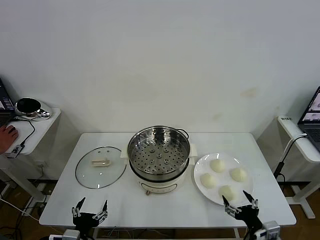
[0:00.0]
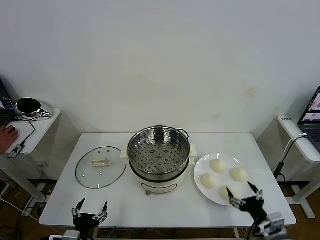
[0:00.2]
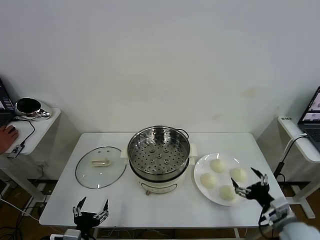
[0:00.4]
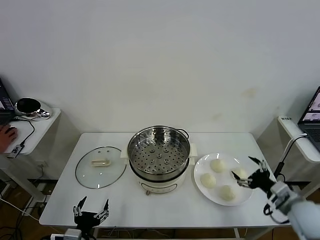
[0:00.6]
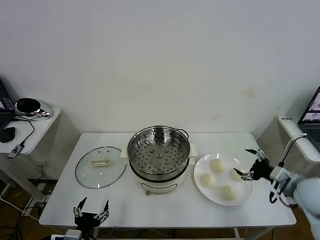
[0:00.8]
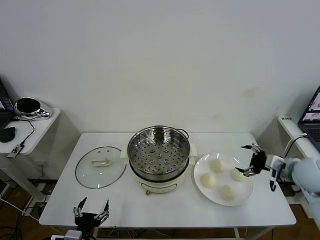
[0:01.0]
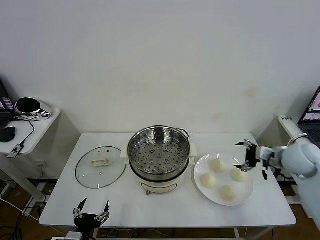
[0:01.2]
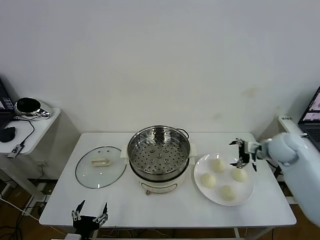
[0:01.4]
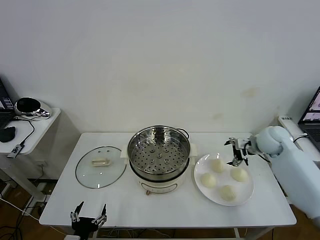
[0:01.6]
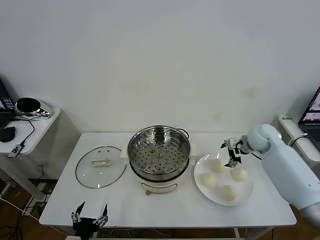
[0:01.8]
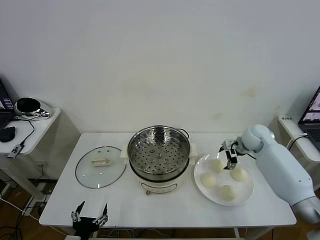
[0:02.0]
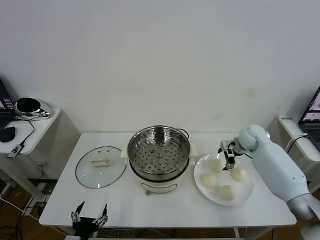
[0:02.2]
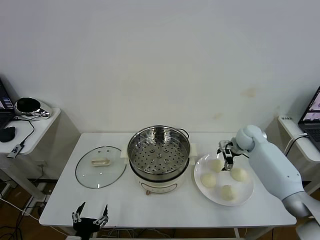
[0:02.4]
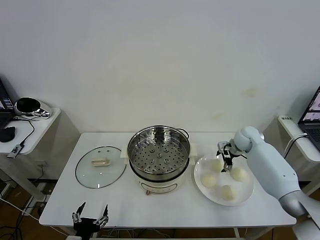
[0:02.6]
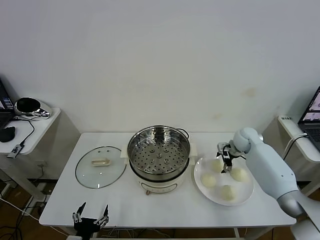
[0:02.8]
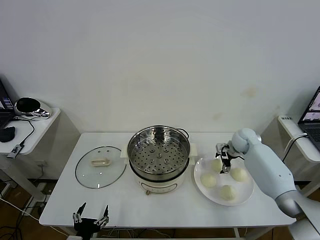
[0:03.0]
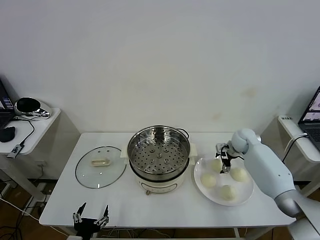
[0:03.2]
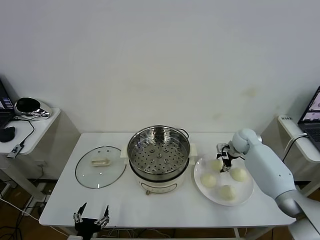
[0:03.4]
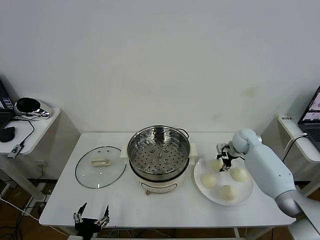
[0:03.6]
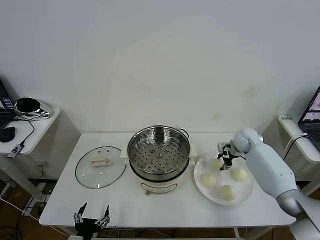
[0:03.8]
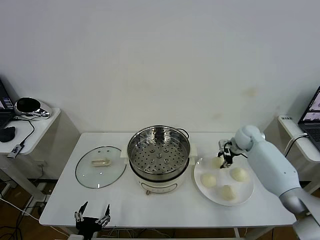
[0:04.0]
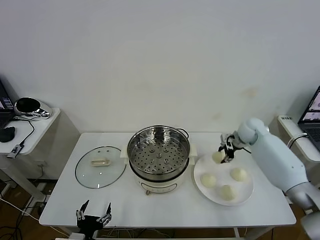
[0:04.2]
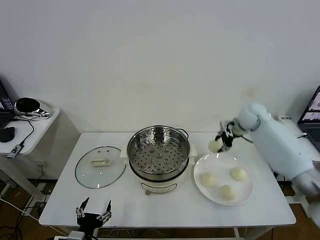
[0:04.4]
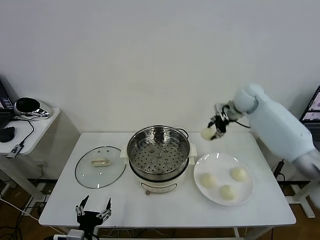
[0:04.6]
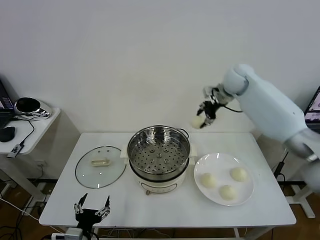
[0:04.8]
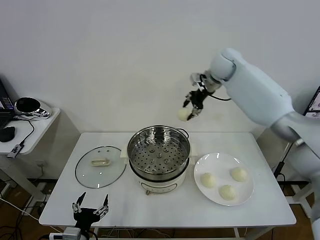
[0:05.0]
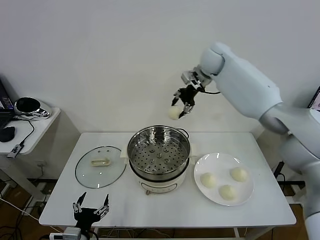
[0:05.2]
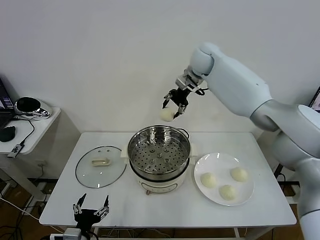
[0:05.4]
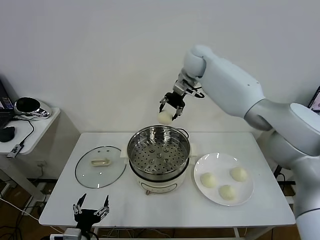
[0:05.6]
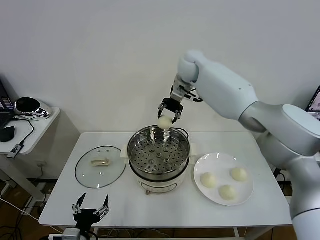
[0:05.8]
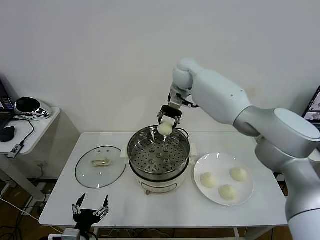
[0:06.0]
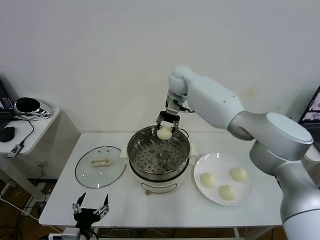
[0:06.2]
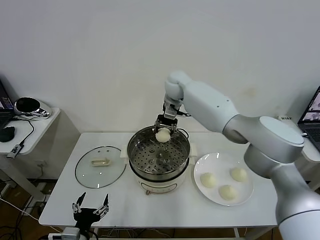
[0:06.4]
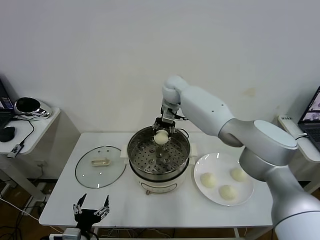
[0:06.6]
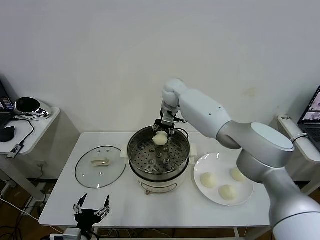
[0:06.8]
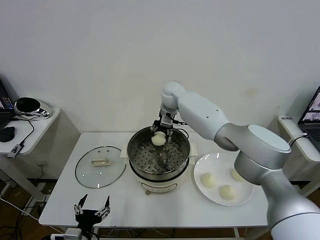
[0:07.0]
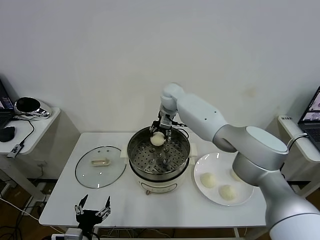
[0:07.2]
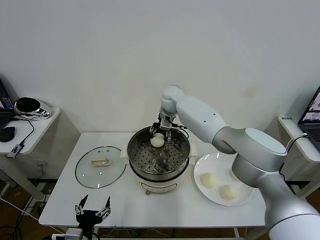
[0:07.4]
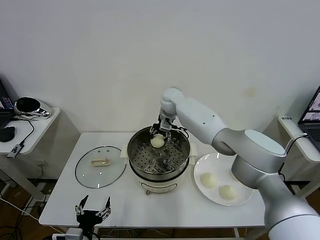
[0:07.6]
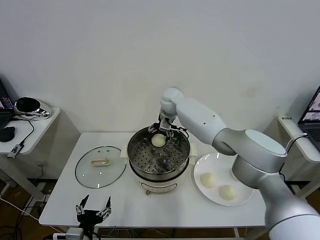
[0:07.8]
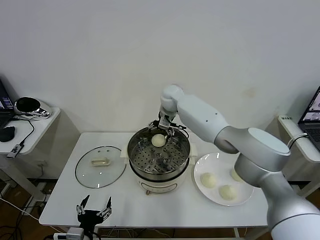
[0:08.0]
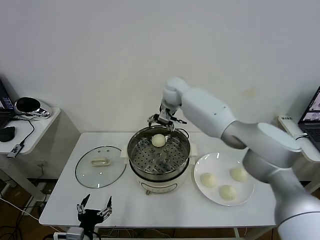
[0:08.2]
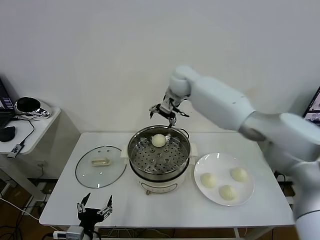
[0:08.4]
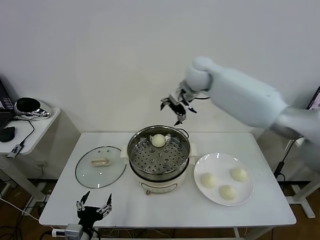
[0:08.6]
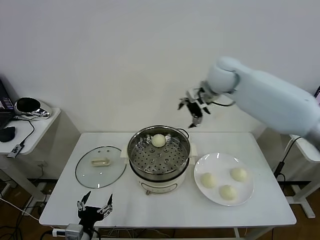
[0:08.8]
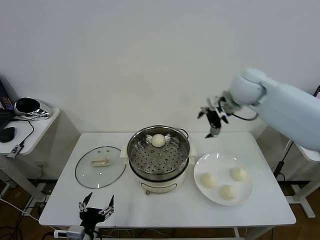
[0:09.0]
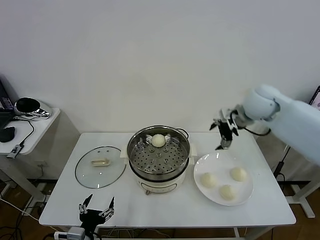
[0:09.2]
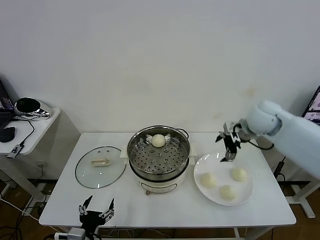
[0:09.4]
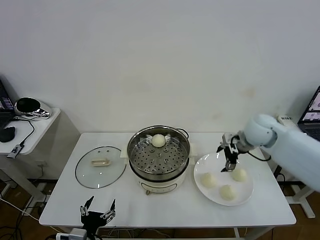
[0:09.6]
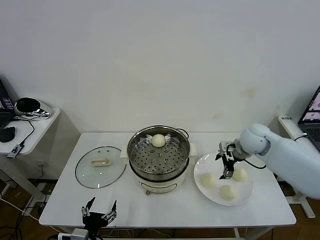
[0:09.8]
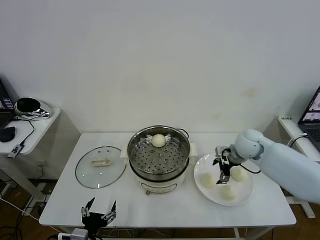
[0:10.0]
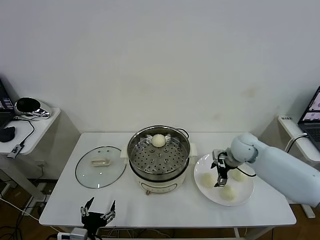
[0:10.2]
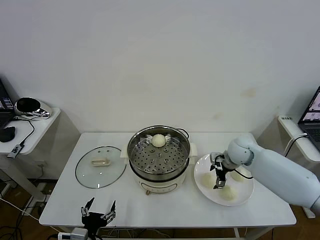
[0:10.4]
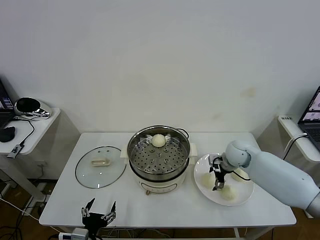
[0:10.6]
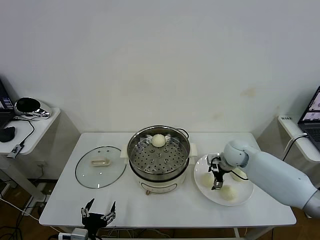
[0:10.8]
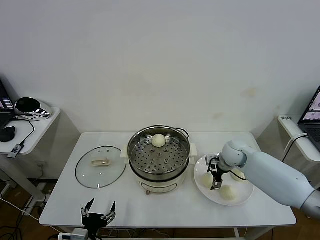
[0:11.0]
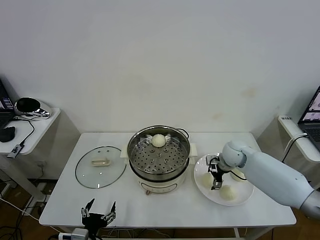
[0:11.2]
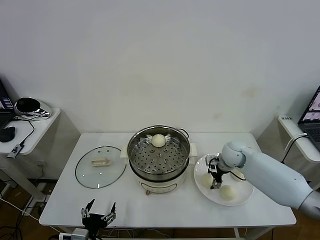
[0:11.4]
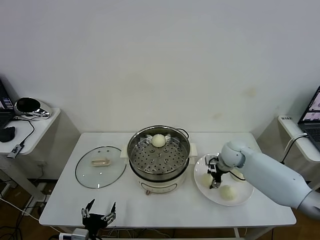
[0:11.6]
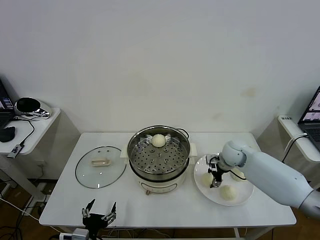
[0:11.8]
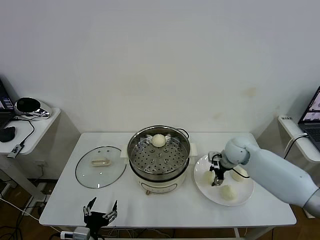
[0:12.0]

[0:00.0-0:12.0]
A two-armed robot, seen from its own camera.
Task of the whole recording: take steamed baozi put them in steamer then cover it.
Step, 0.0 to 3.6 s: Grasp the baozi in the plate with right gripper.
Step, 3.8 to 8.0 s: Place the baozi on the steamer with right gripper.
Step, 8.2 to 11.6 s: Grasp the baozi in the plate with right gripper.
1.6 to 3.0 s: The right gripper goes some 10 cm downward and forward.
3.0 to 4.4 s: The right gripper travels upward by roughly 10 cm, and closes.
4.4 to 6.0 s: The right gripper goes roughly 25 cm to the left and upward.
6.0 to 7.6 s: The right gripper is displaced downward by approximately 10 cm.
7.6 to 9.0 s: The right gripper is displaced to the right, upward and backward by some 25 cm, and opens.
9.0 to 10.4 s: The right gripper moves downward, approximately 25 cm.
10.4 to 12.0 s: The right gripper closes its fingers.

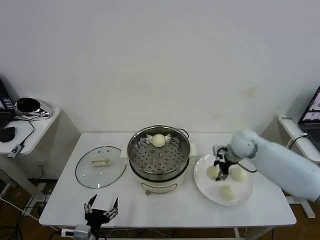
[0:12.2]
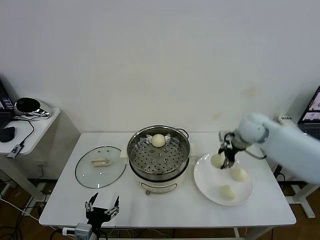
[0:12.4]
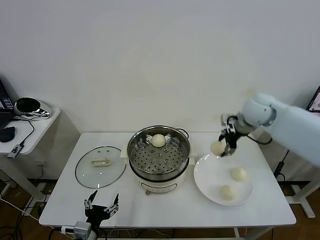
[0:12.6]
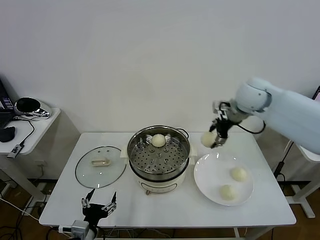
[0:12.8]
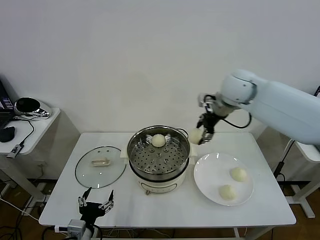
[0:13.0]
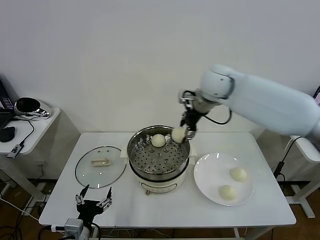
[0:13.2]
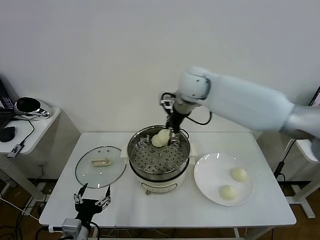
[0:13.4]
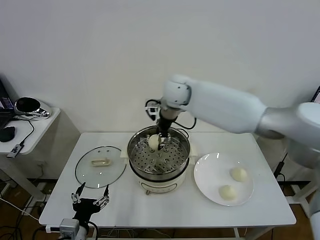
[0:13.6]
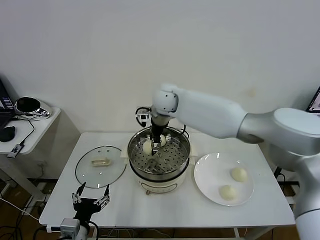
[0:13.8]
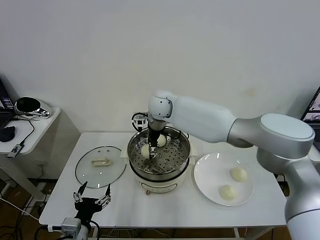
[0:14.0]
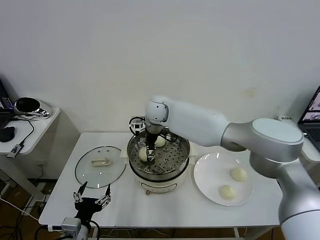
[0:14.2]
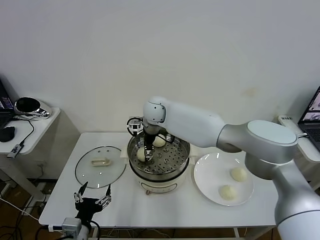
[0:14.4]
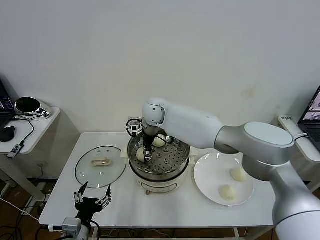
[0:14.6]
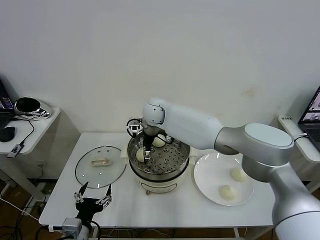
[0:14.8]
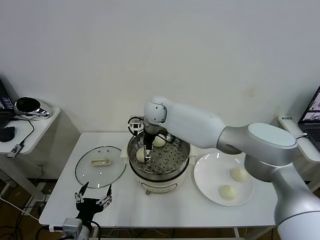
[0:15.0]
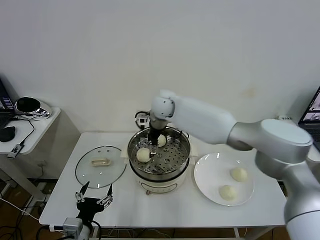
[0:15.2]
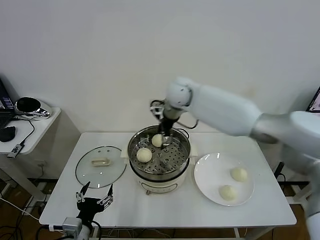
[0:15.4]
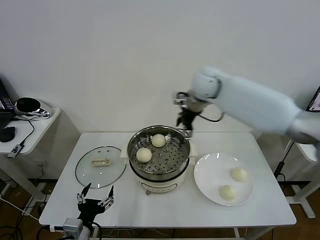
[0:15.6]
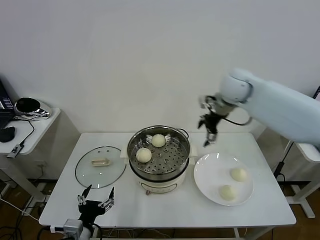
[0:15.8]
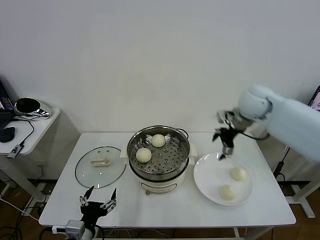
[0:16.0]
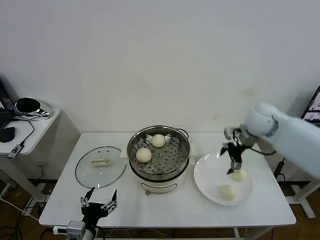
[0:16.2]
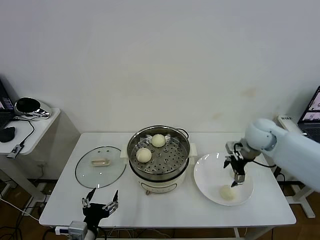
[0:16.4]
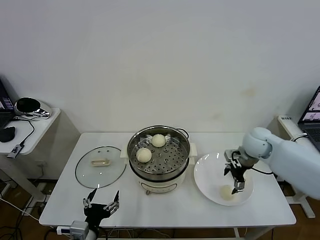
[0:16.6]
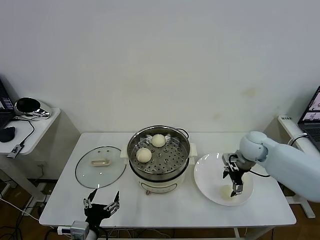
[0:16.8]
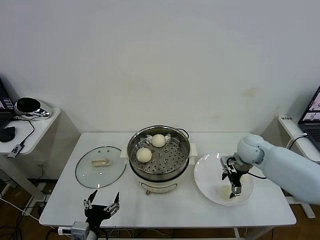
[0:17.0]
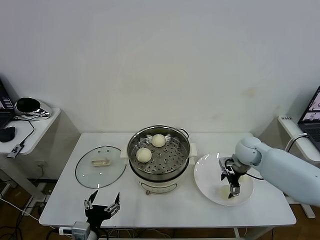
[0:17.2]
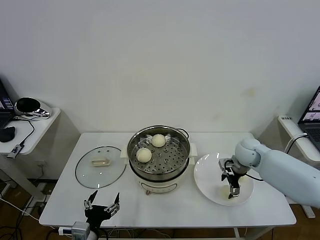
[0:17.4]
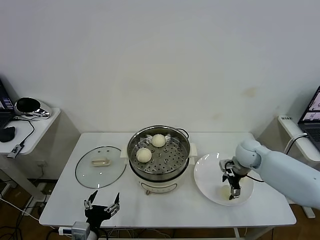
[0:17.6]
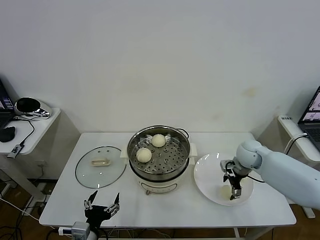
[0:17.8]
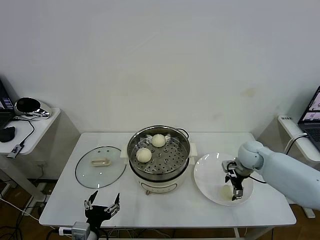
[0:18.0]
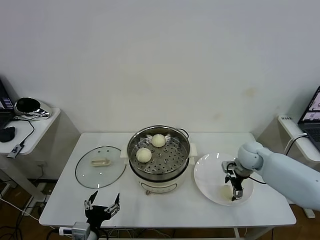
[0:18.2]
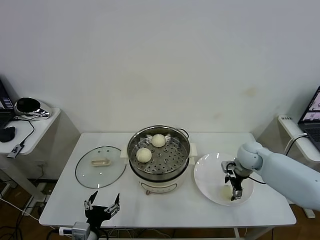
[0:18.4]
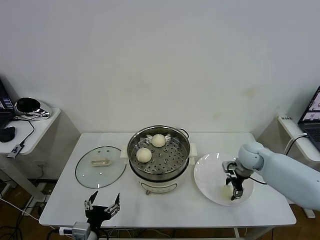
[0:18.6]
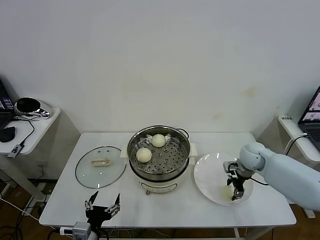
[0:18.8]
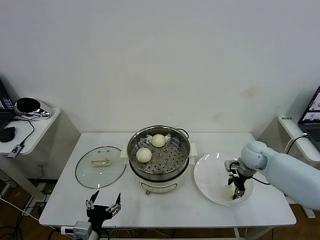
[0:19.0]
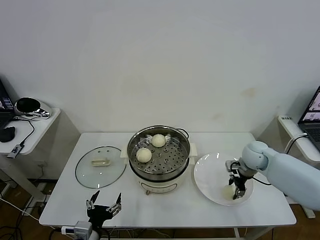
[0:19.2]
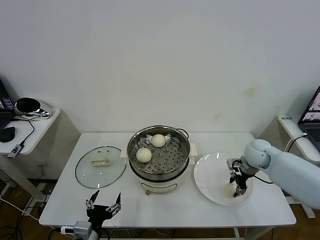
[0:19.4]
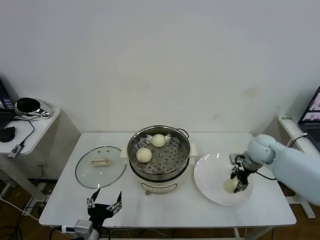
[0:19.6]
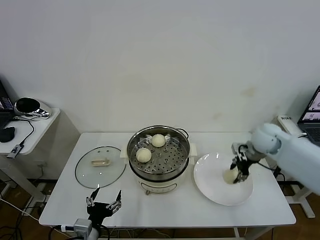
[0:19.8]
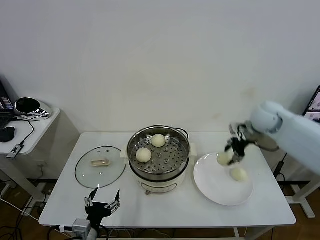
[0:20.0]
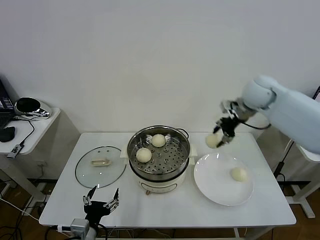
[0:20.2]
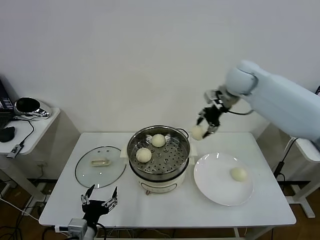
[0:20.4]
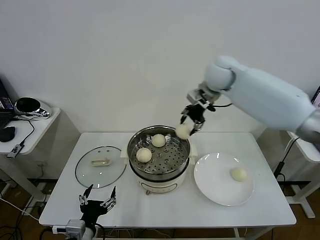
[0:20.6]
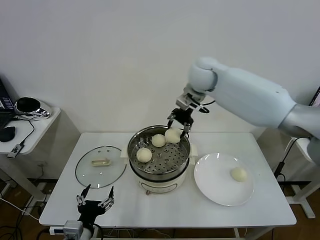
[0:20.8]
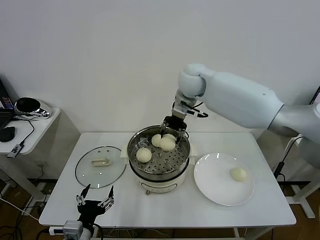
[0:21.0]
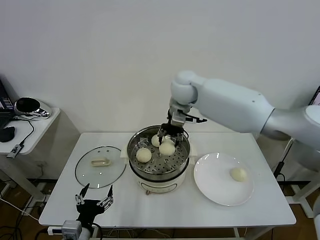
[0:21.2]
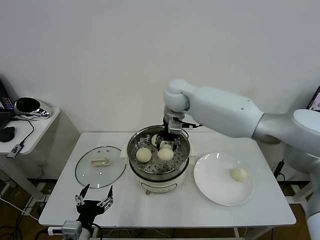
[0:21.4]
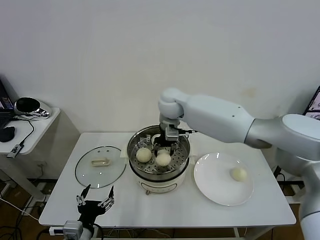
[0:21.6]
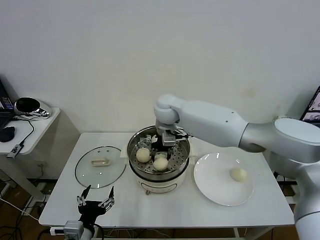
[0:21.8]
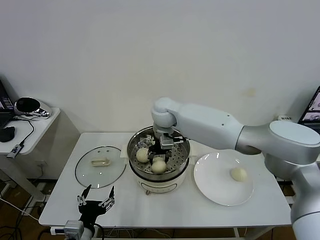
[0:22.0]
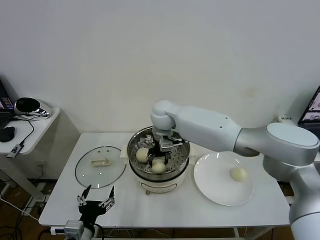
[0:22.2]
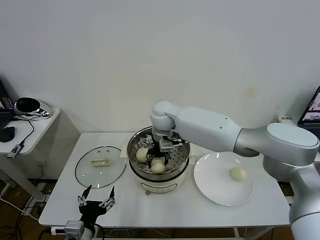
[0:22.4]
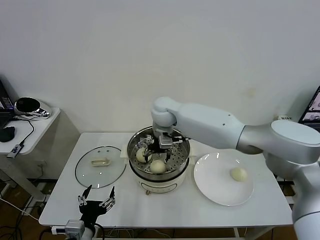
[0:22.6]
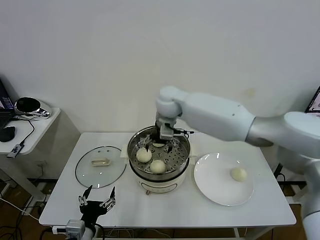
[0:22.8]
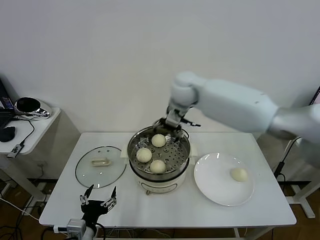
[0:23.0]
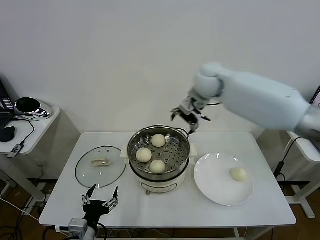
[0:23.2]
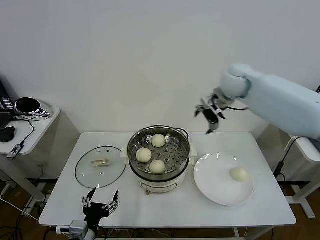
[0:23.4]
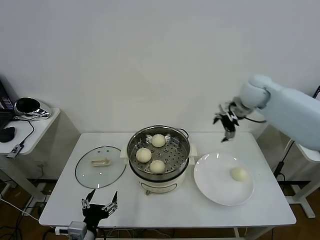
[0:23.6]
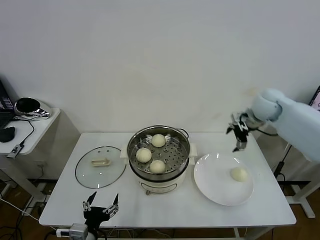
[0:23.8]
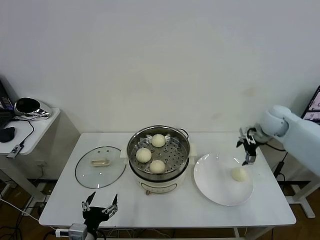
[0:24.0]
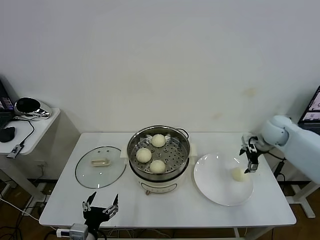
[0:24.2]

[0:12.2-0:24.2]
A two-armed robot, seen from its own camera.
Task of the whole recording: take steamed baozi put them in steamer then cover it.
Step, 12.2 to 15.0 s: Place the baozi on the steamer with right gripper.
Step, 15.2 to 19.0 s: Grasp the baozi in the plate with right gripper.
Step, 19.2 to 22.6 s: Place the baozi on the steamer with right gripper.
12.2 to 13.8 s: The right gripper shifts some 30 cm to the left and upward.
13.8 to 15.2 s: The right gripper opens its fingers.
15.2 to 16.6 s: The right gripper goes about 30 cm to the right.
16.6 to 18.2 s: The right gripper is displaced downward by some 5 cm.
18.2 to 19.8 s: The right gripper travels upward by roughly 10 cm, and closes.
19.8 to 21.2 s: The right gripper shifts about 30 cm to the left and upward.
21.2 to 22.6 s: The right gripper shifts roughly 10 cm downward and to the left, and opens.
22.6 to 24.2 s: The right gripper heads to the right, covering roughly 40 cm.
